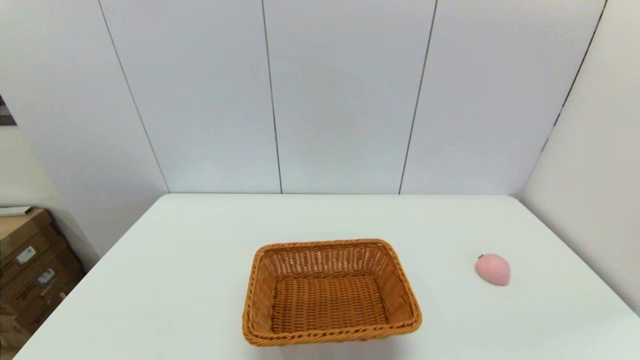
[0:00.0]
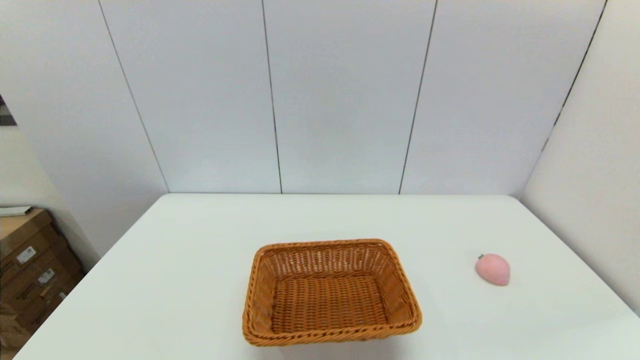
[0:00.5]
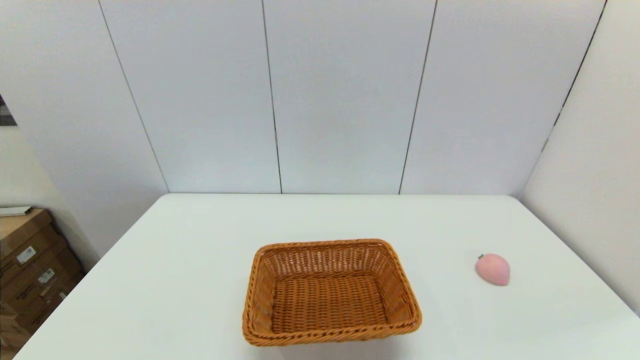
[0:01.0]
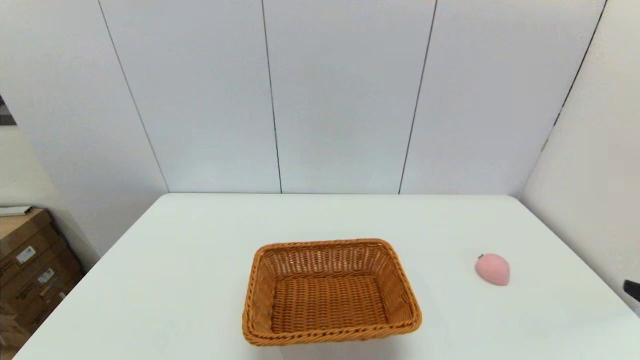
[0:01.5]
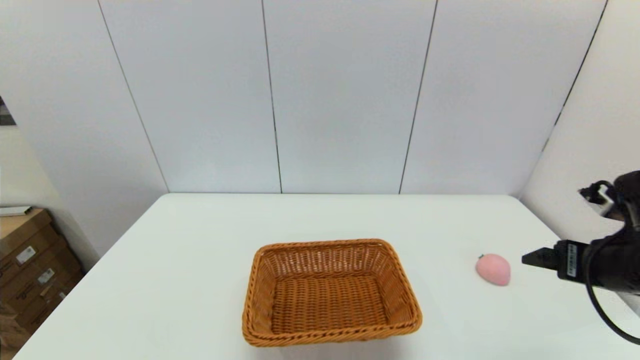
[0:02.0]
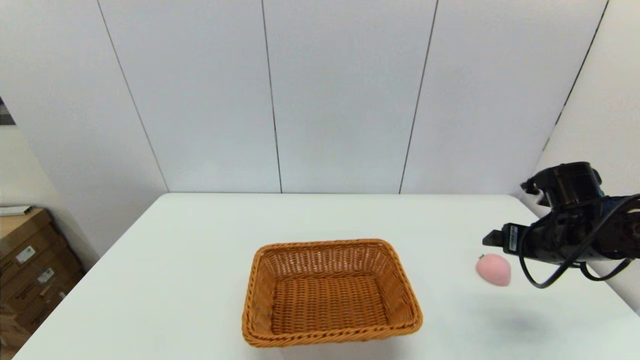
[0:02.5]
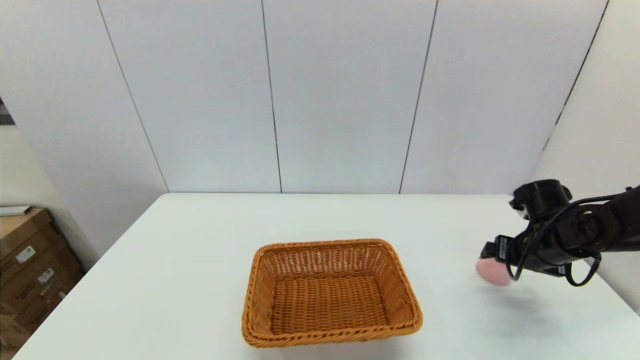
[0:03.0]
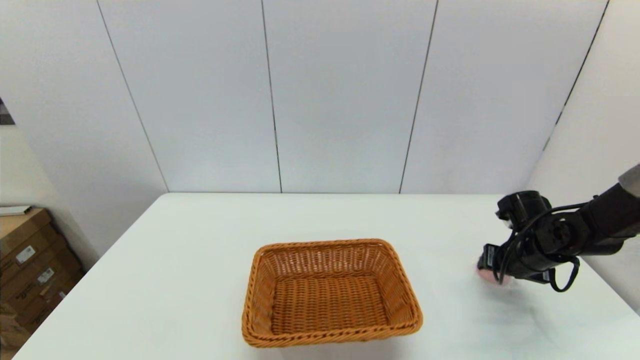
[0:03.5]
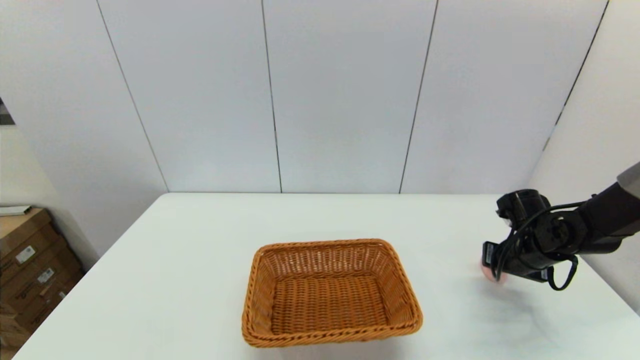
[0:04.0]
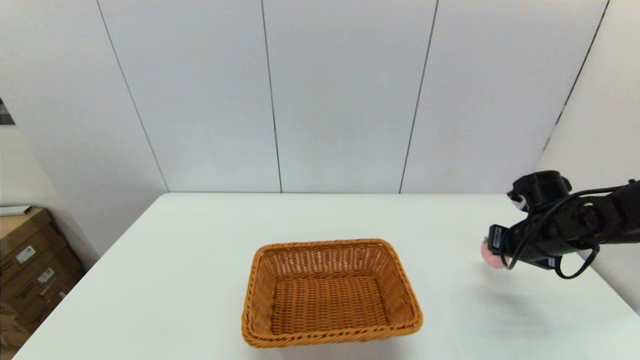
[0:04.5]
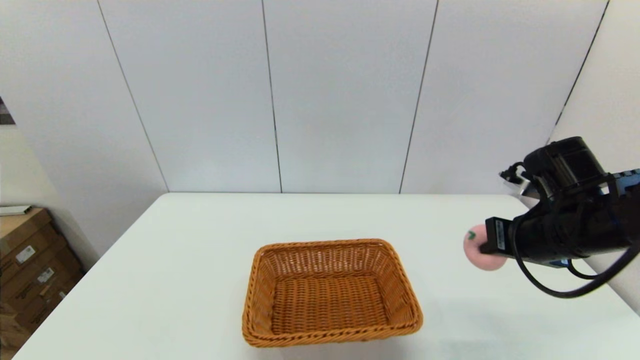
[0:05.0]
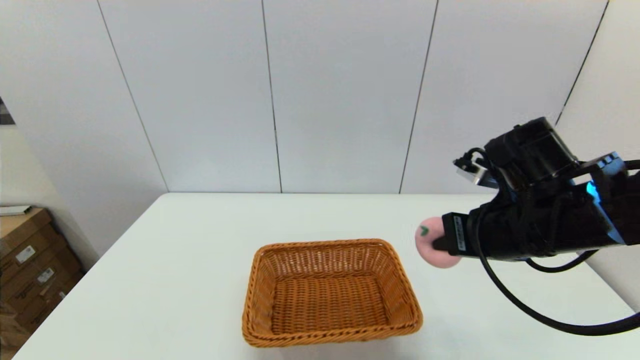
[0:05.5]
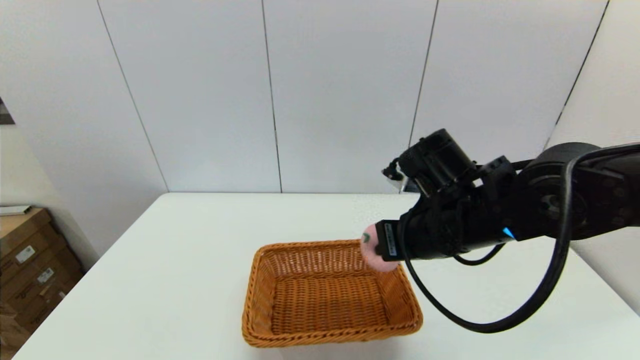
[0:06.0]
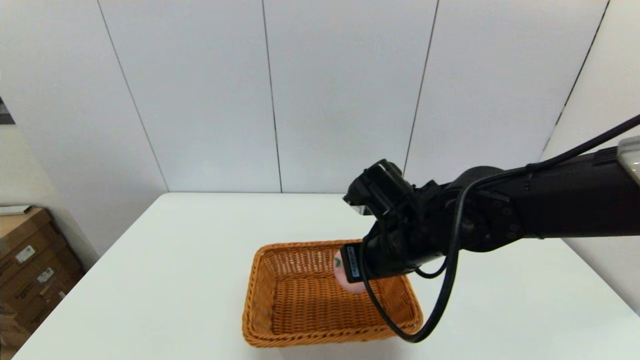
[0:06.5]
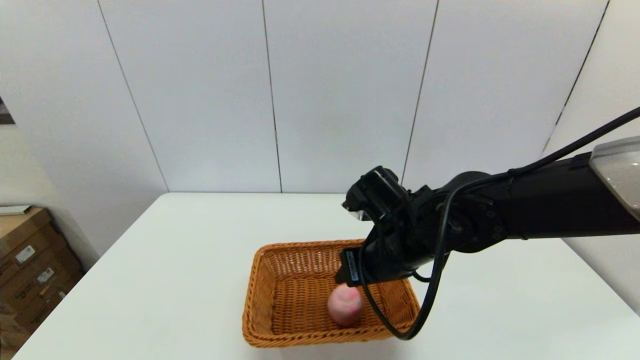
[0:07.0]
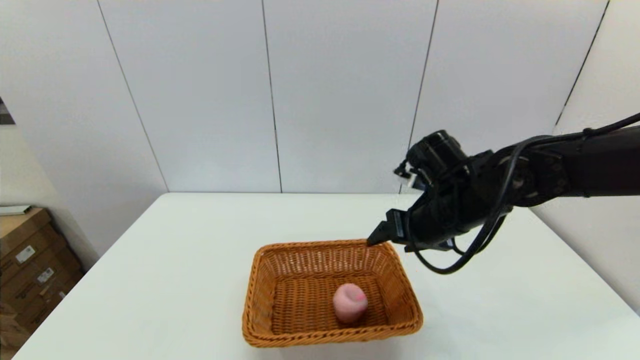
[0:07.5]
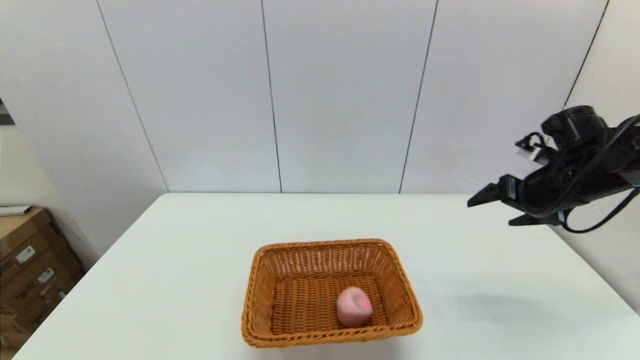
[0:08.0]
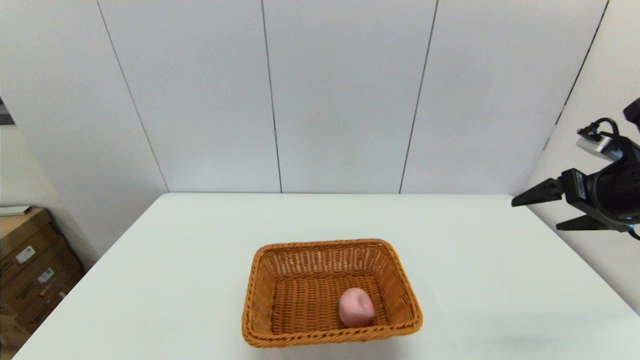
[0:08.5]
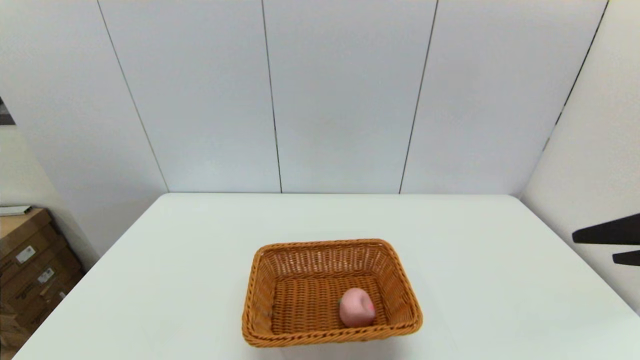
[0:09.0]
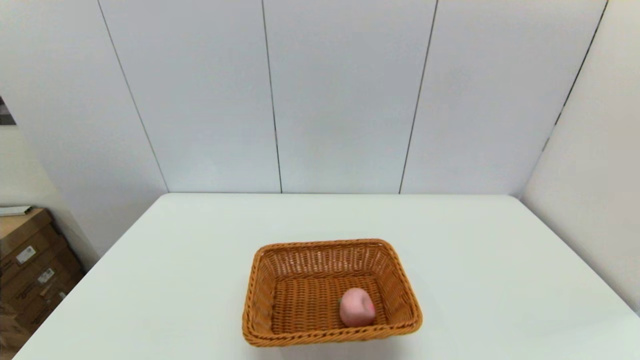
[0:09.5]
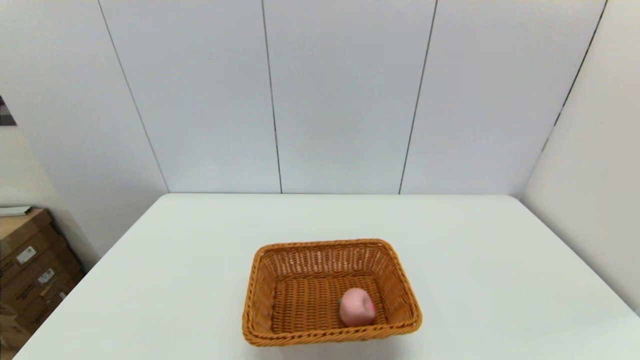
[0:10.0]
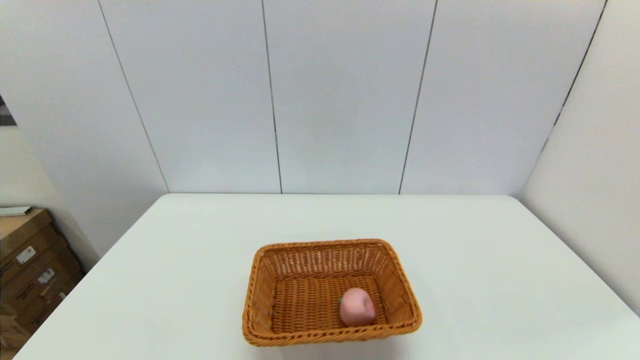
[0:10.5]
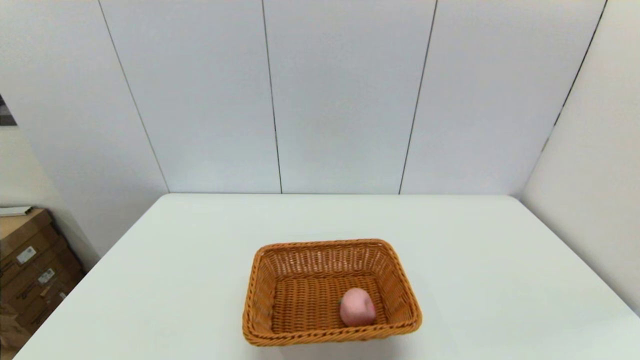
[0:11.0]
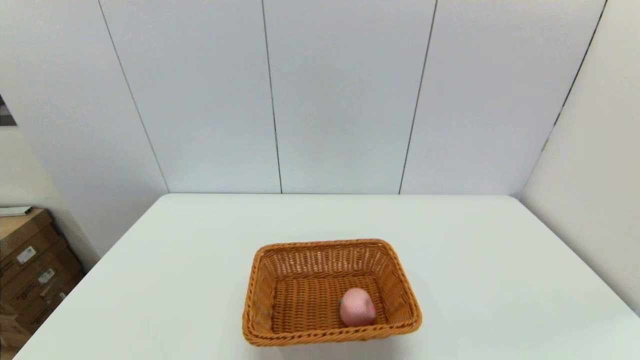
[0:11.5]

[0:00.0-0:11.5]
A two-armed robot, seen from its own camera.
Step, 0:00.0 to 0:04.0: Grasp the peach with the right gripper.
Step, 0:04.5 to 0:07.0: Place the peach into the light basket with the right gripper.
0:00.0 to 0:02.0: The right gripper is displaced forward by some 25 cm.
0:02.0 to 0:04.0: The right gripper moves forward and downward, approximately 15 cm, and closes.
0:04.0 to 0:06.0: The right gripper travels to the left and upward by approximately 25 cm.
0:06.0 to 0:07.5: The right gripper shifts approximately 5 cm forward, and opens its fingers.
0:07.5 to 0:09.5: The right gripper heads backward and to the right, covering approximately 30 cm.

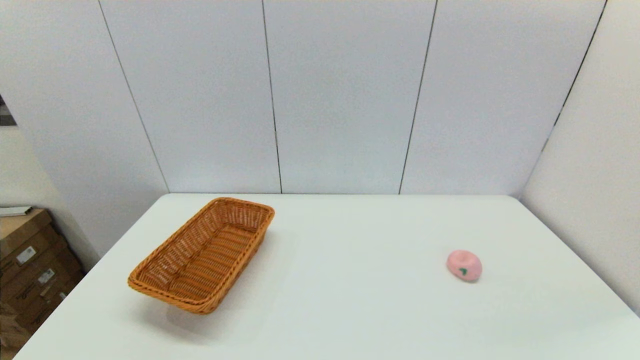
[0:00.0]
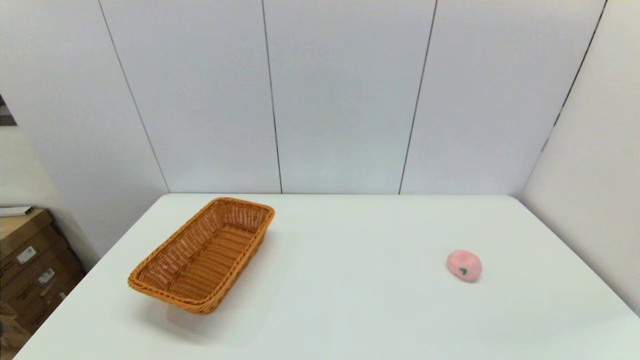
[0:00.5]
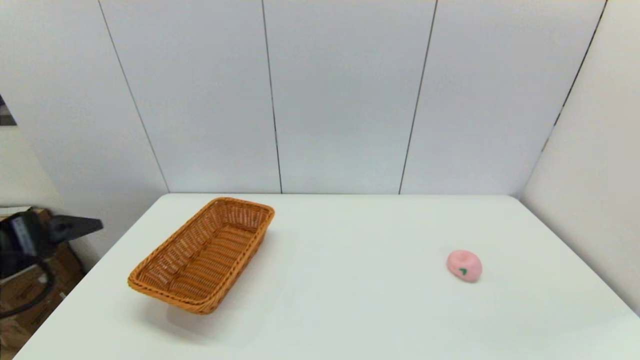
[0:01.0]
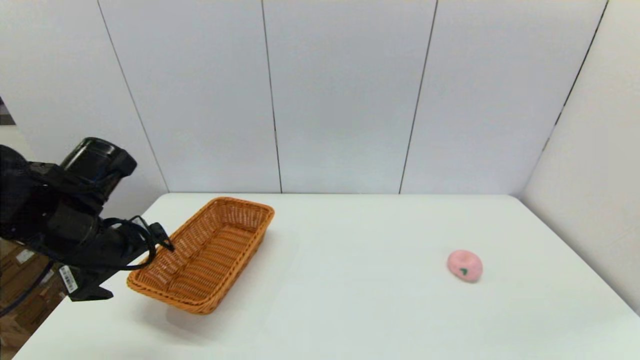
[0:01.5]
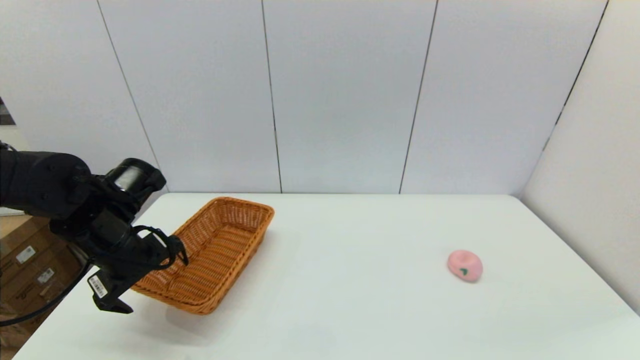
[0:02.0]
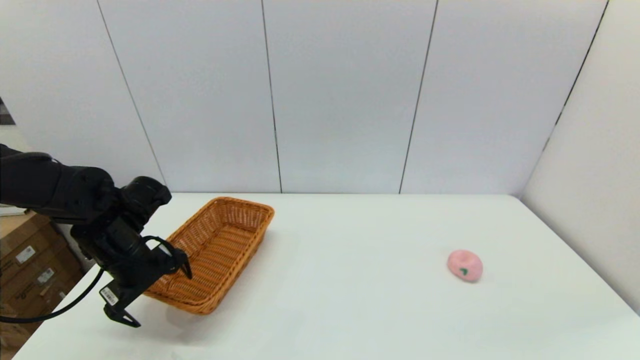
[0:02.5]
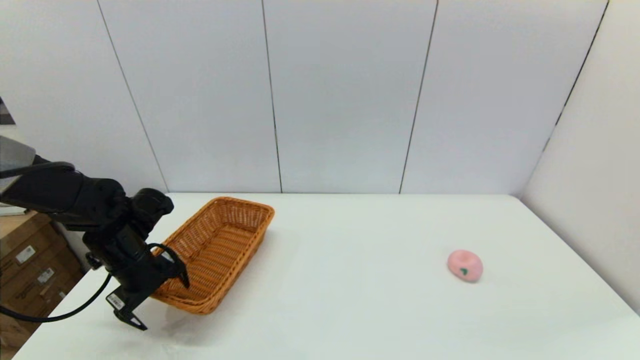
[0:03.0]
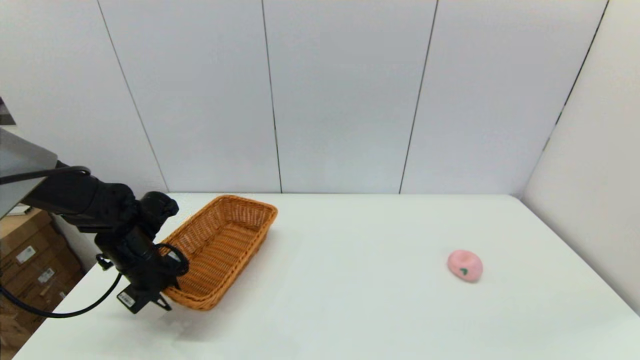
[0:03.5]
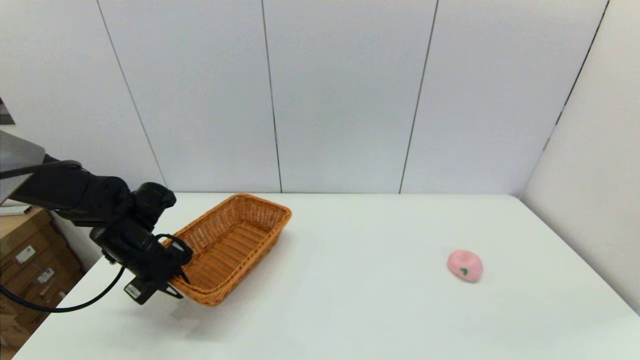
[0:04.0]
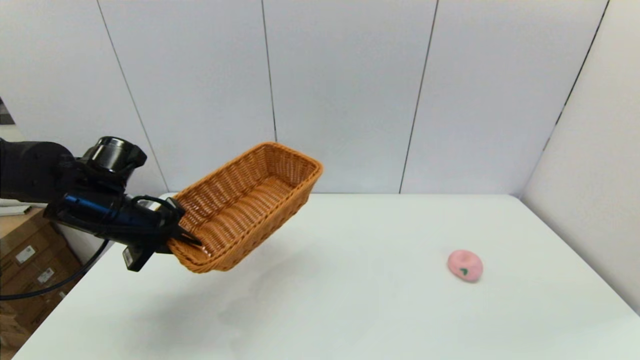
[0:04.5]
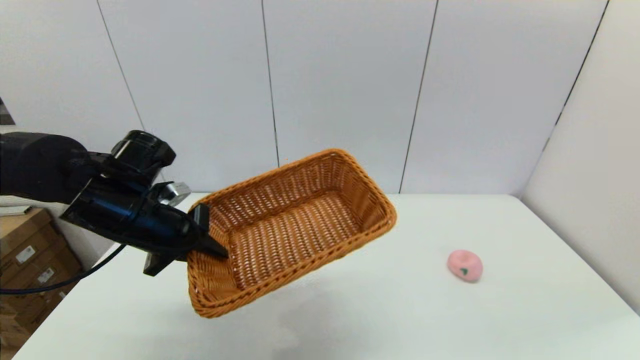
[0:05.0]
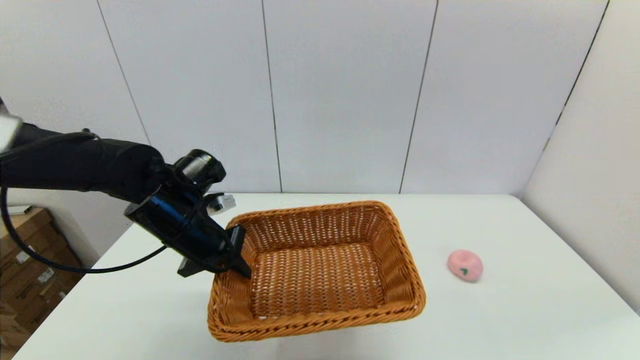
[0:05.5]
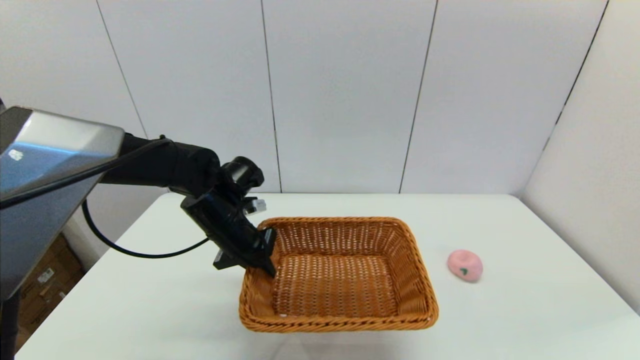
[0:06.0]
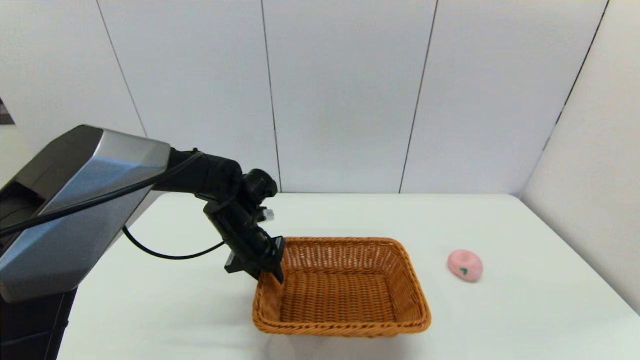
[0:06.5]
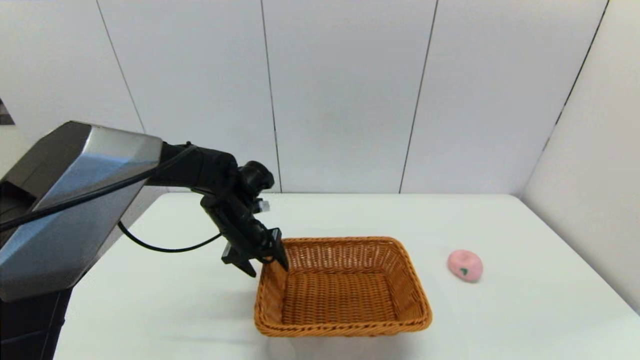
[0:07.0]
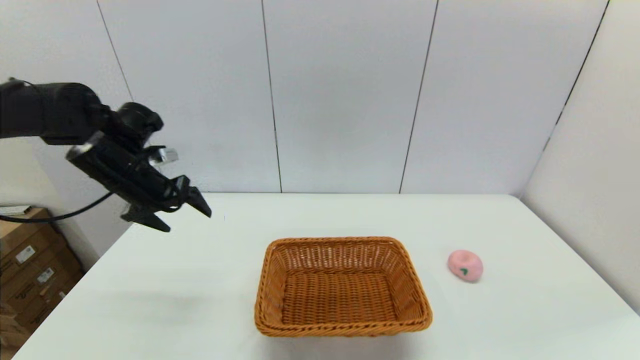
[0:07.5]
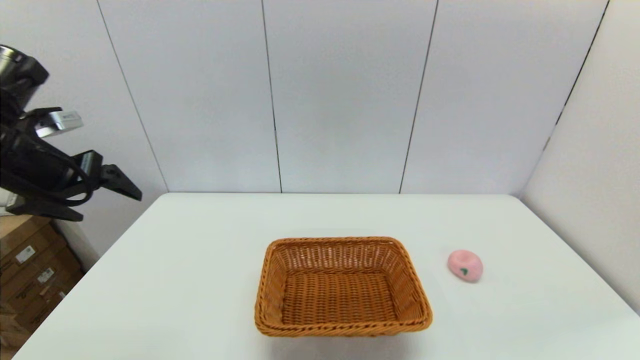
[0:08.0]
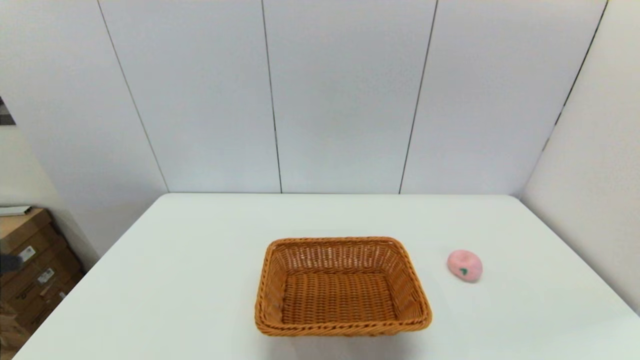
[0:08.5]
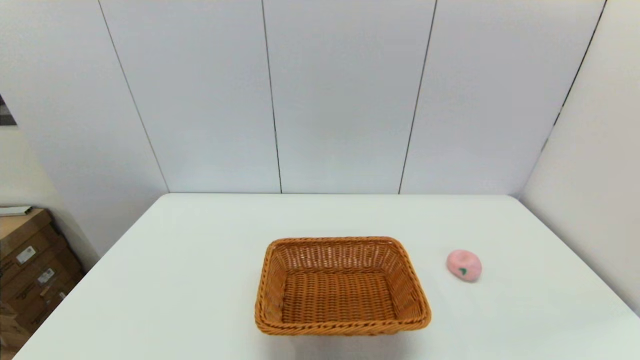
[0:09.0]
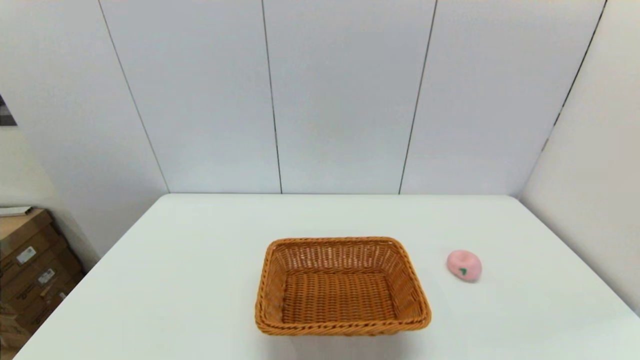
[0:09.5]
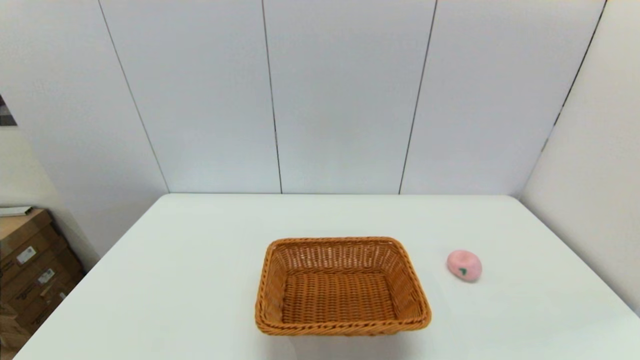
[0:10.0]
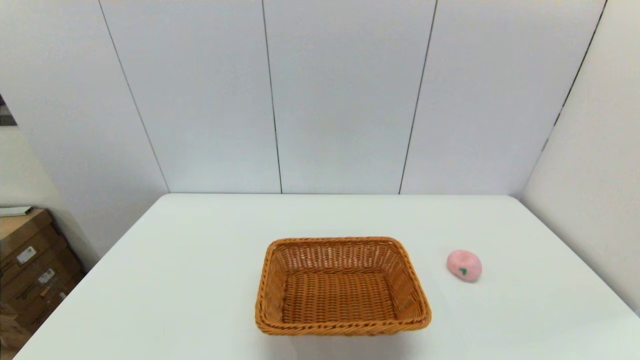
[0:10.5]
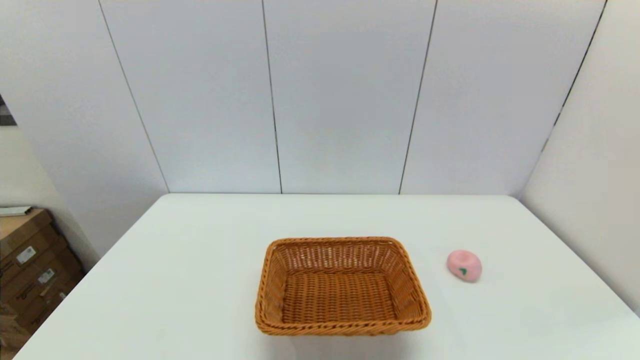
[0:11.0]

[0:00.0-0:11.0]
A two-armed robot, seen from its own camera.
Step, 0:00.0 to 0:03.5: Grasp the light basket with the left gripper.
Step, 0:04.0 to 0:06.5: Place the light basket on the middle of the table with the left gripper.
0:00.0 to 0:02.0: The left gripper heads forward, covering roughly 30 cm.
0:02.0 to 0:03.5: The left gripper moves downward, roughly 10 cm, and closes its fingers.
0:03.5 to 0:05.5: The left gripper is displaced to the right and upward by some 15 cm.
0:05.5 to 0:07.5: The left gripper travels to the left and upward by approximately 10 cm, and opens.
0:07.5 to 0:09.0: The left gripper is displaced backward by approximately 40 cm.
